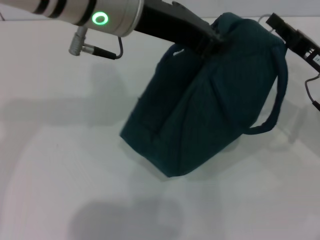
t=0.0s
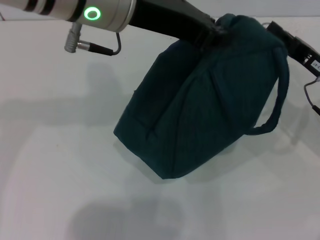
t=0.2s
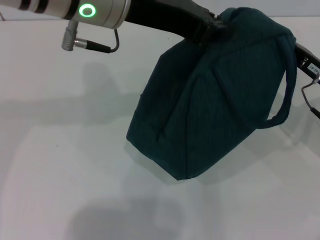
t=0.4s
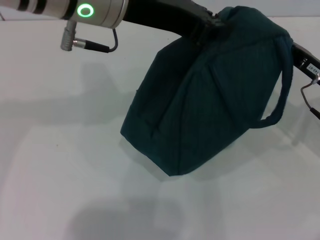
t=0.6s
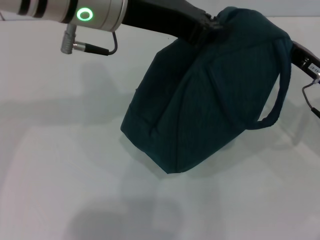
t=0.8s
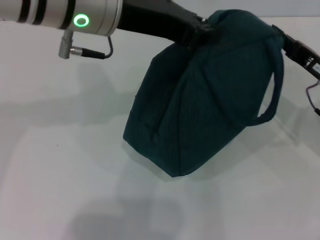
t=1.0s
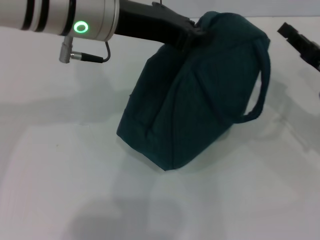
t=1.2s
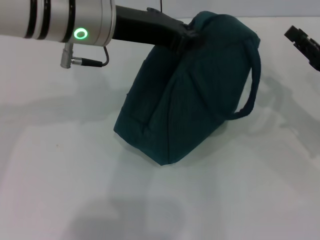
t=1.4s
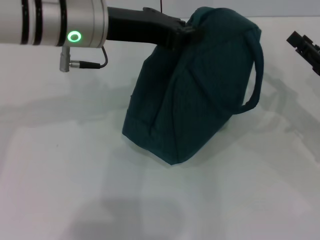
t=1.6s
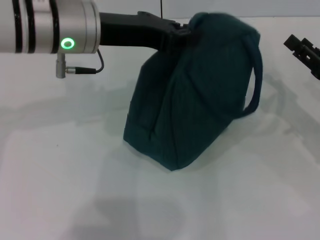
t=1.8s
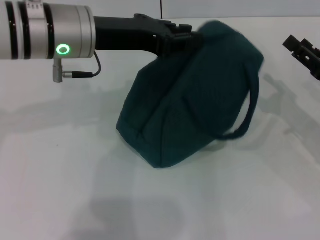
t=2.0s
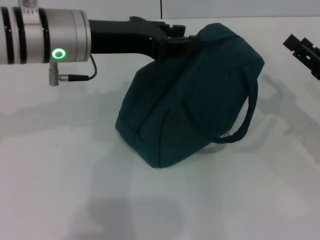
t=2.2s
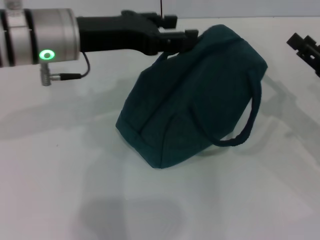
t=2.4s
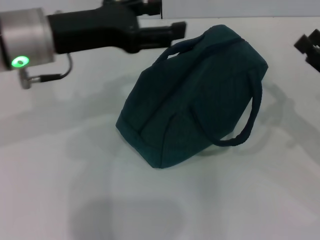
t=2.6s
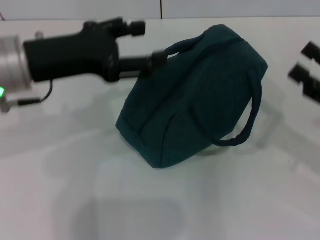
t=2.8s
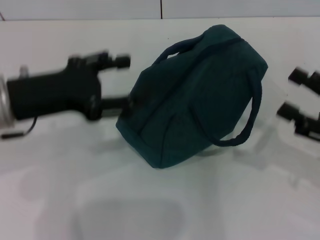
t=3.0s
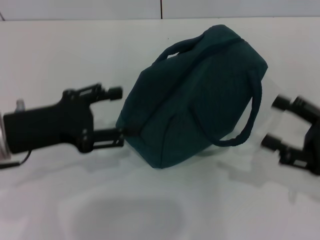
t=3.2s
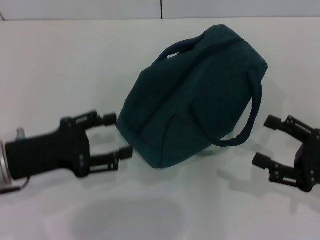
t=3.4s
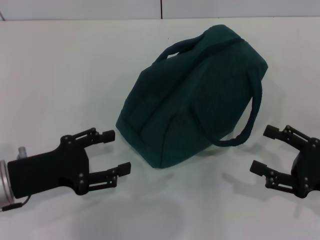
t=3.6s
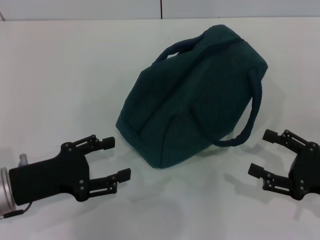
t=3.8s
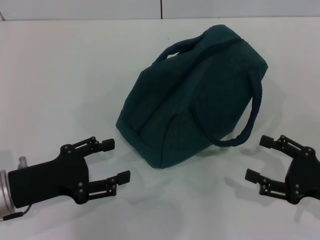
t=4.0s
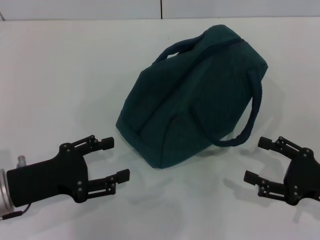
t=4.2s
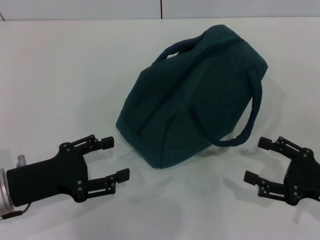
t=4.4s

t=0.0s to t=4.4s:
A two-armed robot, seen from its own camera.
Step, t=1.2s to t=2.0s: Hold the lunch bag with your left hand.
t=0.0s to t=1.4s: The left gripper moves about 5 cm.
t=1.4s to t=3.0s: The right gripper shifts about 5 cm backward, and opens up. The left gripper travels to the left, backward and downward by some 15 cm, and opens.
t=3.0s to t=4.4s: The left gripper moves downward and backward, approximately 10 cm; the right gripper heads downward, covering roughly 5 cm.

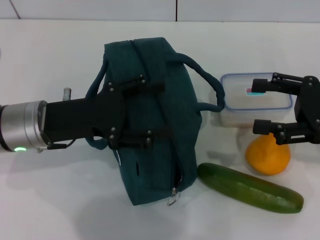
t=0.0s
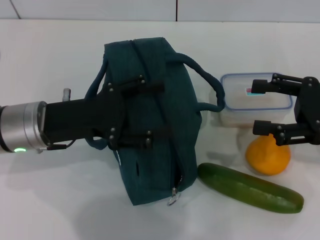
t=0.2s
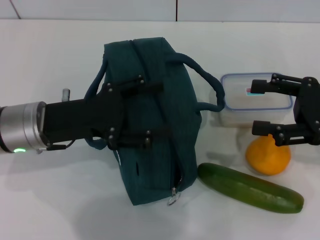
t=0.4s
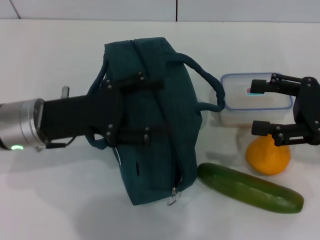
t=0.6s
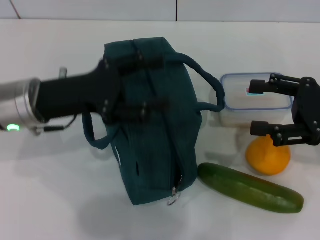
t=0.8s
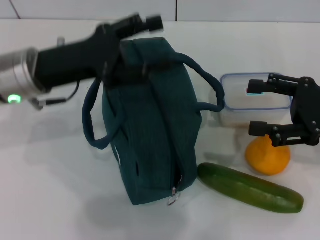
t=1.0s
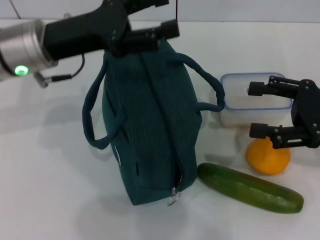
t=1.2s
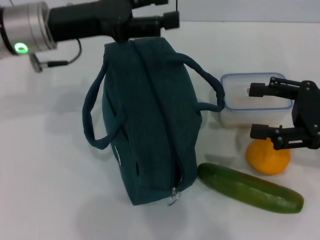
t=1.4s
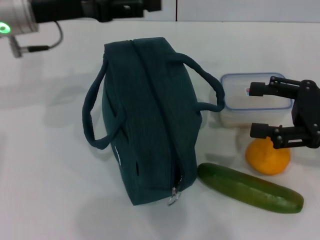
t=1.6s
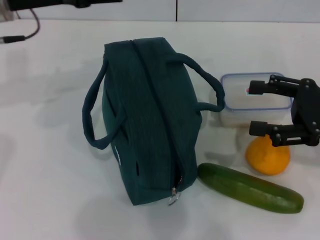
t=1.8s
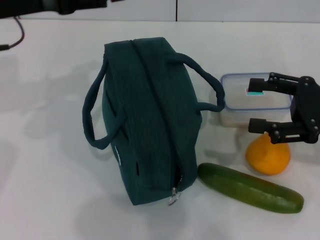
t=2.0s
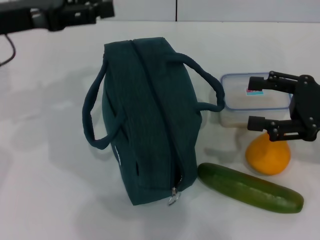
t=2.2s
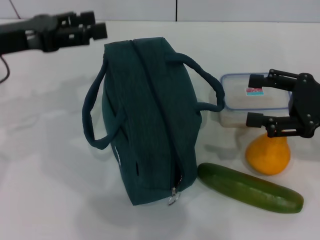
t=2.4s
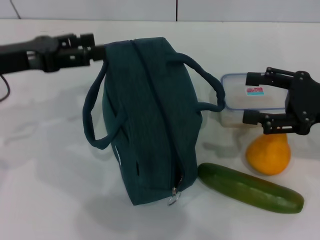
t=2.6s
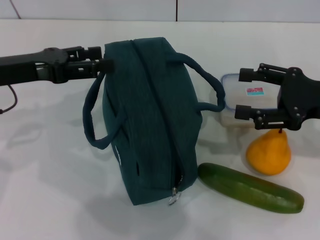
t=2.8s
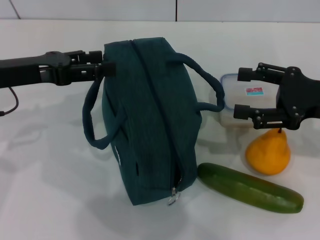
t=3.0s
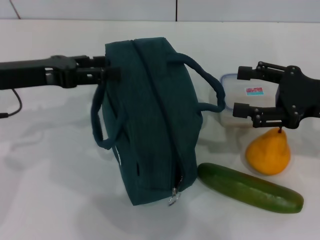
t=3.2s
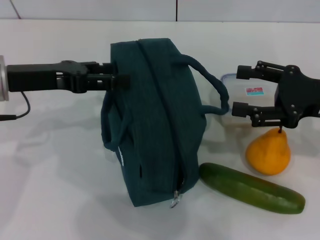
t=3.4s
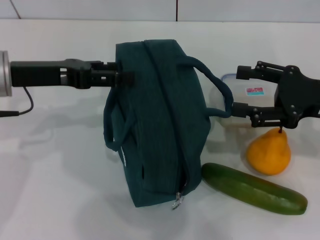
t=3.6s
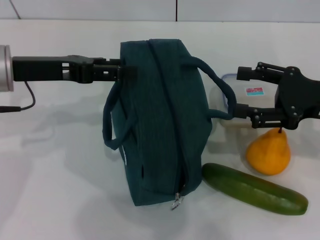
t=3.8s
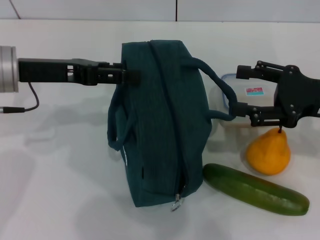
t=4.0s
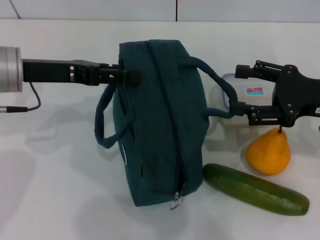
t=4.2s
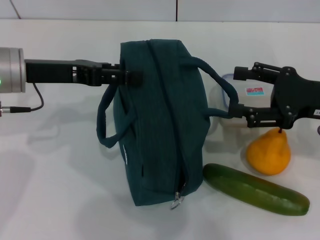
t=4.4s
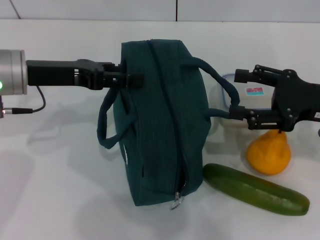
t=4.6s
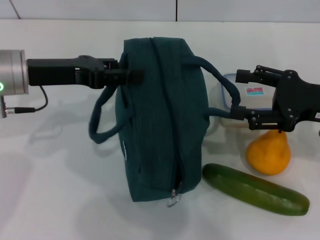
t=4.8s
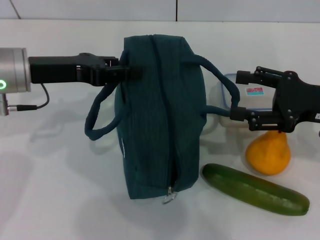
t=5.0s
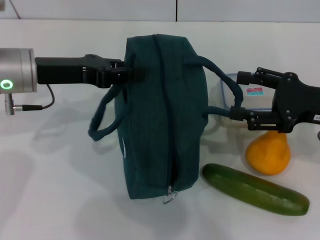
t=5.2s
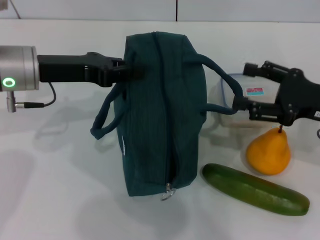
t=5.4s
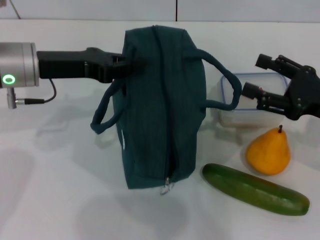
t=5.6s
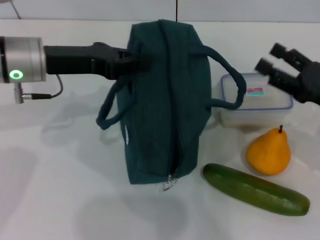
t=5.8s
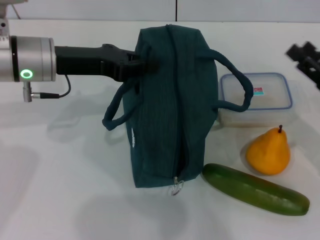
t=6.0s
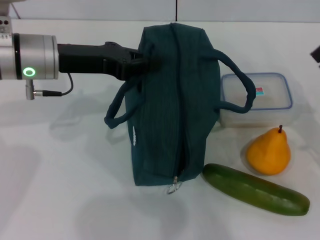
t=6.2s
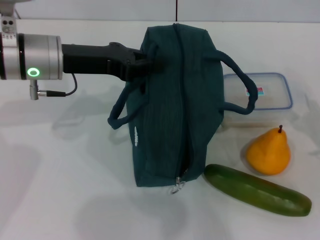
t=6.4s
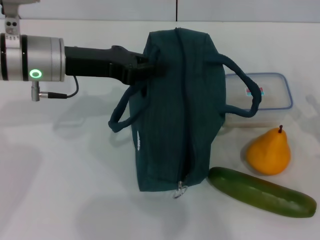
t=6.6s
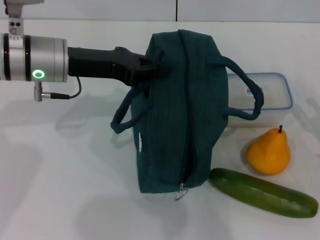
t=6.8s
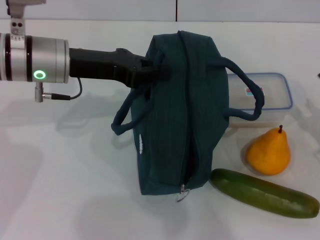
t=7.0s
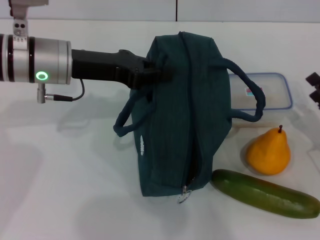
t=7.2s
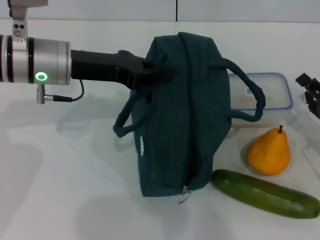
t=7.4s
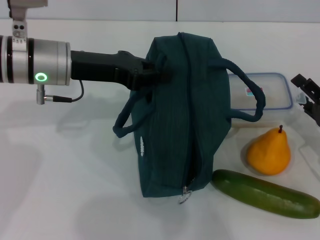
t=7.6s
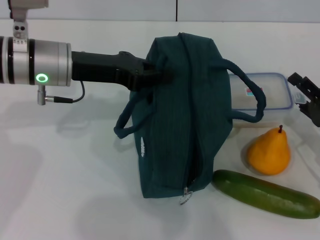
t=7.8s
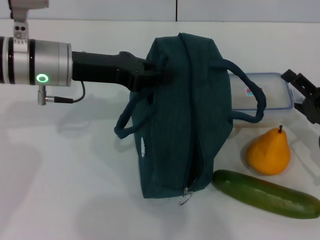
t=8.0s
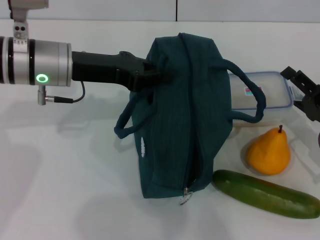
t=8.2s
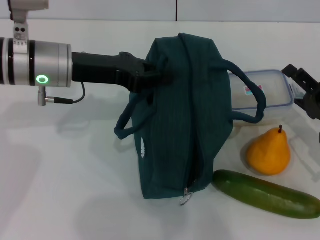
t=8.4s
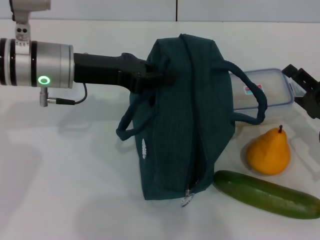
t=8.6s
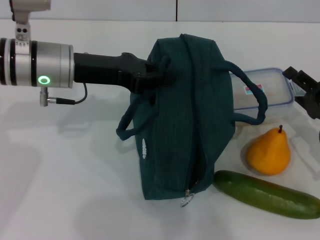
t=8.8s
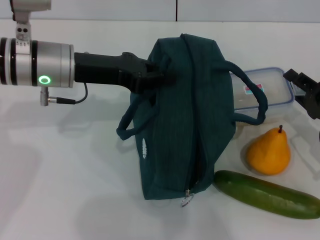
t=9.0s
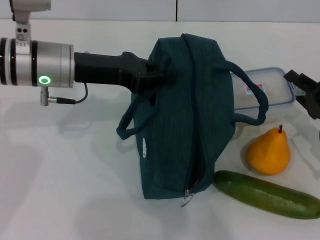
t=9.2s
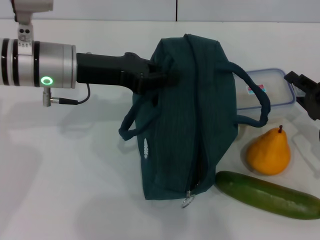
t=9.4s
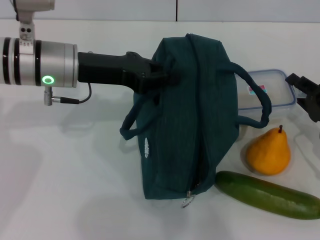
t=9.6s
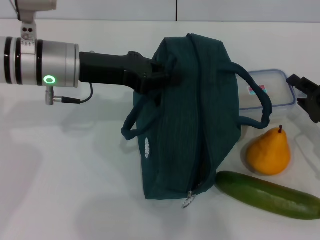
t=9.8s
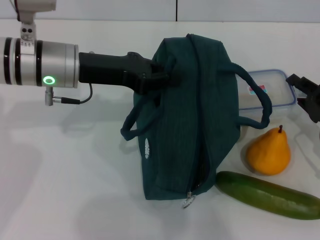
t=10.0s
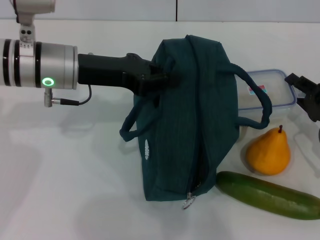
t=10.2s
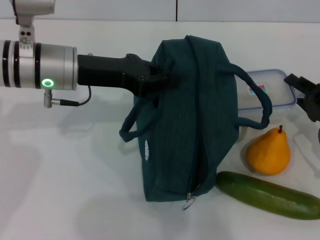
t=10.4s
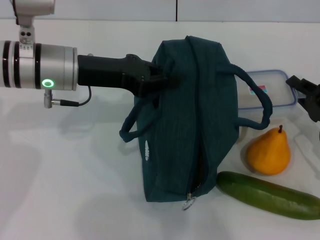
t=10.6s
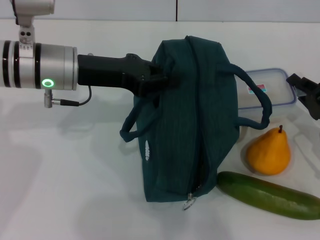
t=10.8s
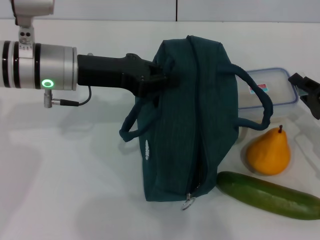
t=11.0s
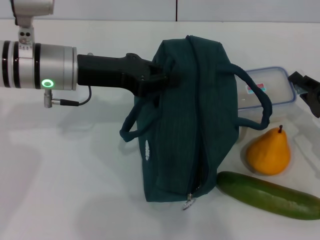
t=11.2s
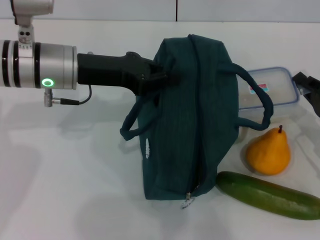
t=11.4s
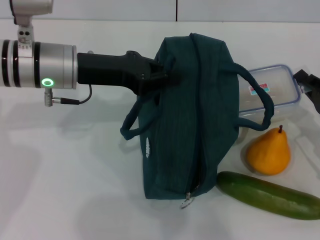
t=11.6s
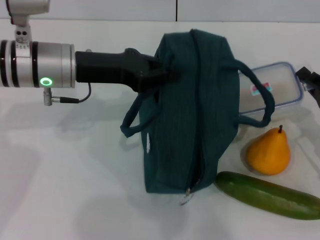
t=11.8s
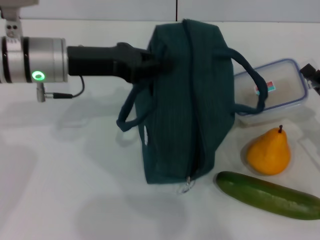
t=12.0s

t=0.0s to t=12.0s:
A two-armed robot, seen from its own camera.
Step, t=0.0s to t=5.4s: Hold the lunch bag with your left hand.
Step, t=5.6s to t=11.0s: Pick up the lunch box with your right hand.
t=0.0s to t=1.6s: The left gripper goes roughly 15 cm forward and upward.
t=1.6s to t=3.0s: The left gripper heads backward and to the left, covering some 10 cm.
t=3.0s to t=4.4s: The grippers move only a little.
t=4.4s to t=6.0s: The right gripper is displaced downward by approximately 5 cm; the left gripper closes.
t=6.0s to t=7.6s: The right gripper ends up approximately 5 cm from where it was.
t=7.6s to t=9.0s: The right gripper closes its fingers.
t=9.0s to t=10.4s: The two grippers keep their place.

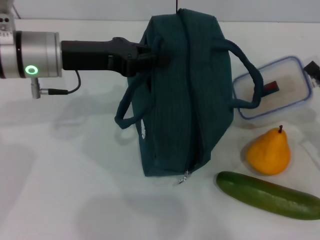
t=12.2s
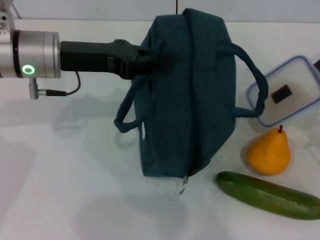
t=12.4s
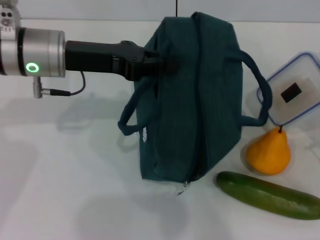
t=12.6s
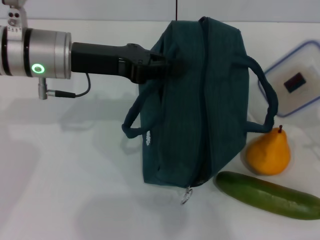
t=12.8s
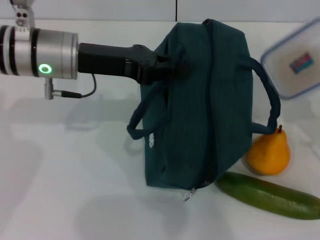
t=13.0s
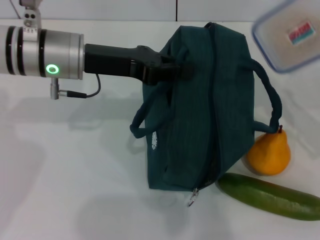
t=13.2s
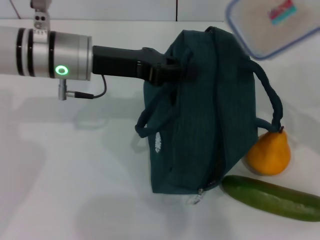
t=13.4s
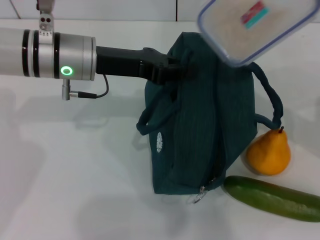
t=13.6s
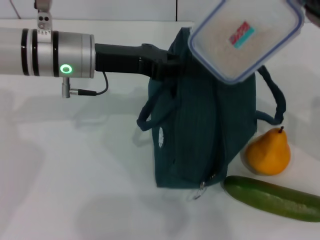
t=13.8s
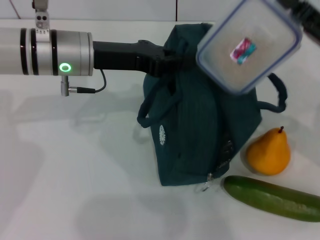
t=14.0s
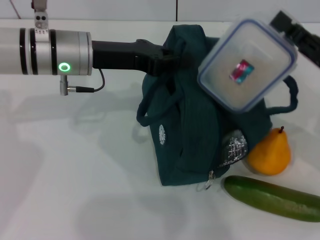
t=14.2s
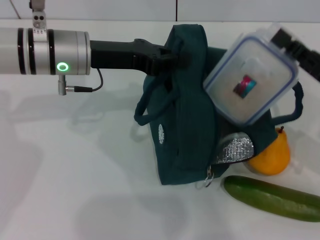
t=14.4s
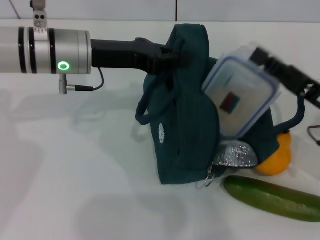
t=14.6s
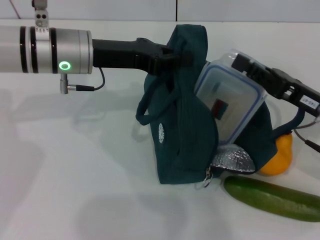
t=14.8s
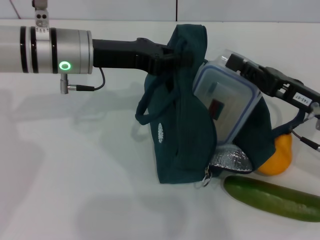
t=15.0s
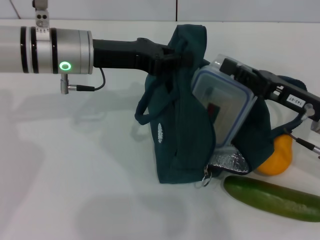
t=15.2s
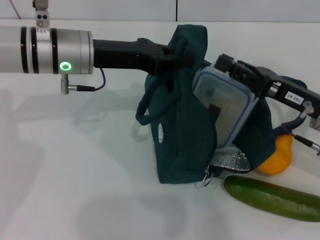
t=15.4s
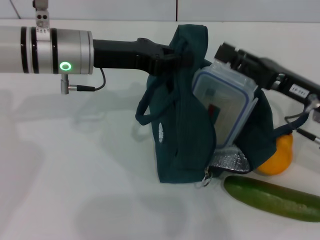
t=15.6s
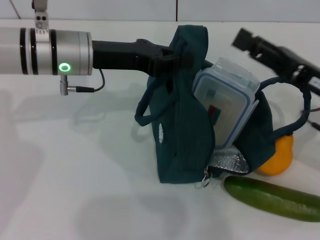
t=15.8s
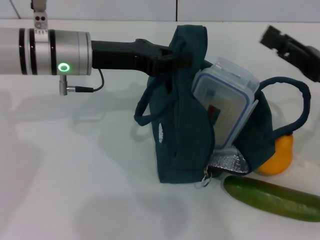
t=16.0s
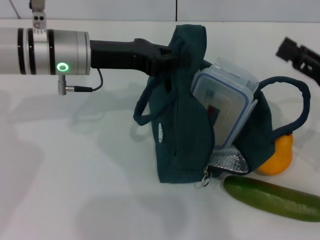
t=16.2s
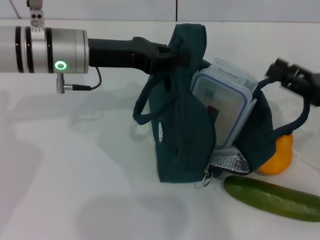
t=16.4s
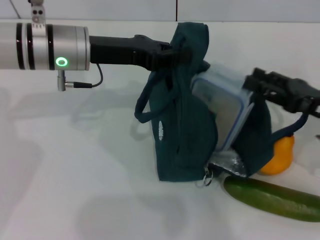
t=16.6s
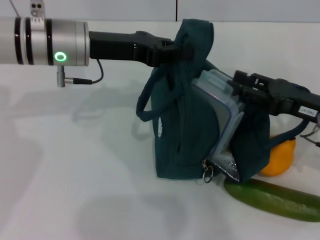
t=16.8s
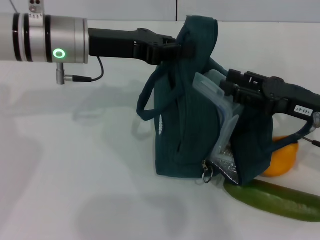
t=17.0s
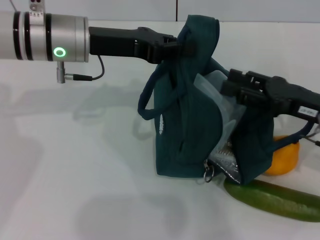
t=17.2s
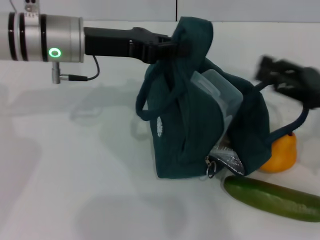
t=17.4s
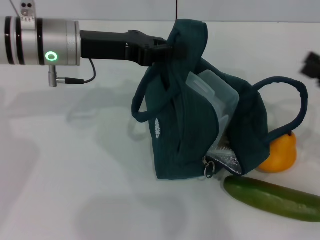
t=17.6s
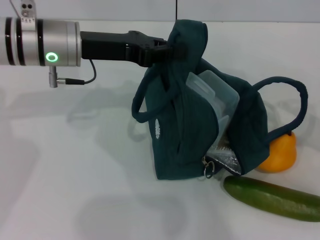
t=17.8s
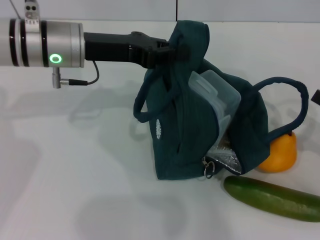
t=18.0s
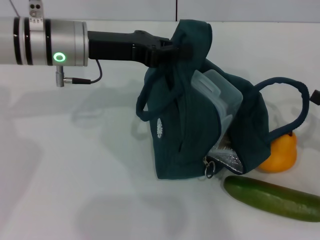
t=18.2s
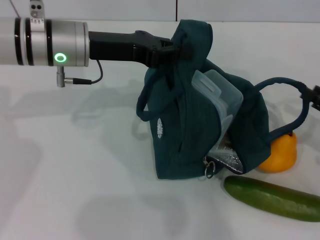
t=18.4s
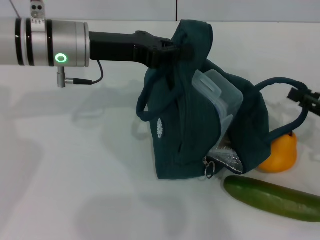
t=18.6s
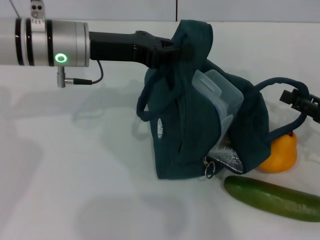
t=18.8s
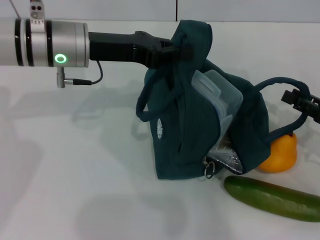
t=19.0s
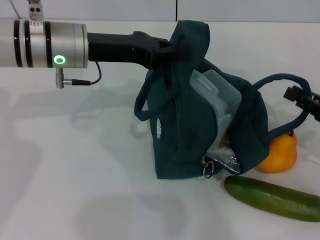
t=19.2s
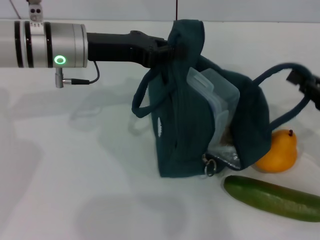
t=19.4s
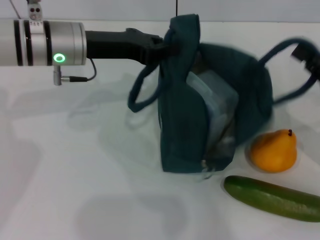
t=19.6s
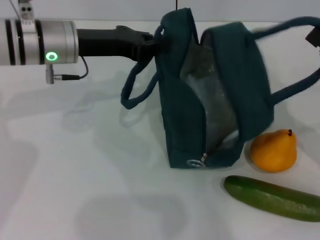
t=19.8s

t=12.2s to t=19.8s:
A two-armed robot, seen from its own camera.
t=12.2s to t=13.8s: The right gripper travels upward and to the left by about 10 cm.
t=13.8s to t=15.2s: The right gripper is displaced downward by approximately 5 cm.
t=15.2s to t=16.8s: The right gripper opens up.
t=16.8s to t=18.2s: The right gripper moves to the right, roughly 10 cm.
t=18.2s to t=19.8s: The right gripper moves to the left, about 5 cm, and closes up.
